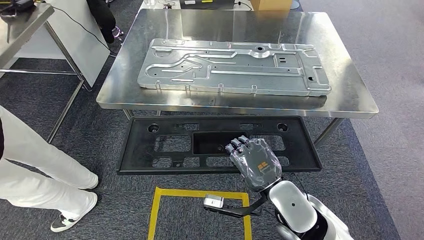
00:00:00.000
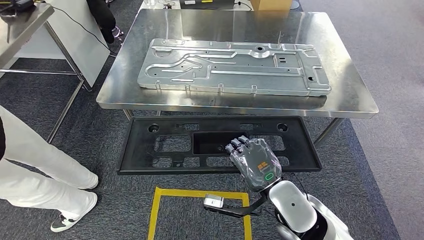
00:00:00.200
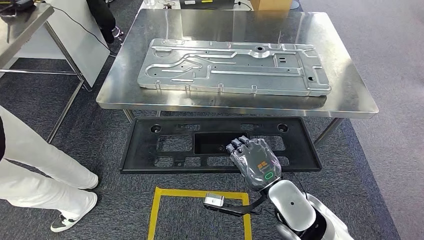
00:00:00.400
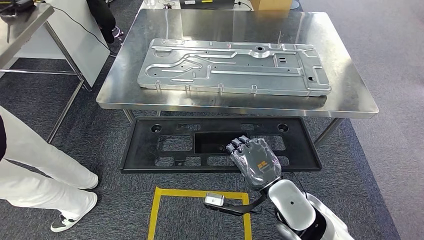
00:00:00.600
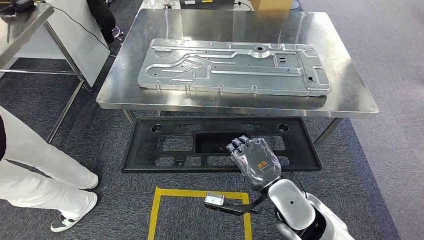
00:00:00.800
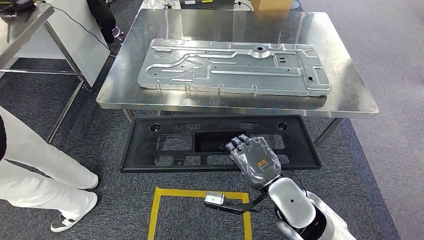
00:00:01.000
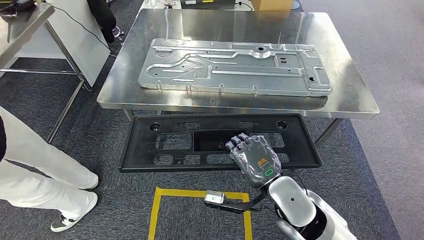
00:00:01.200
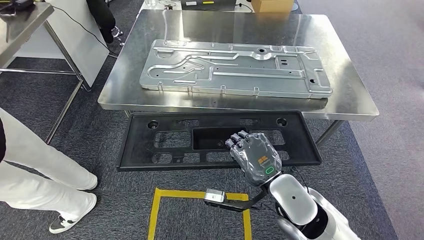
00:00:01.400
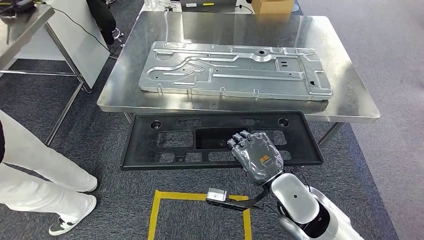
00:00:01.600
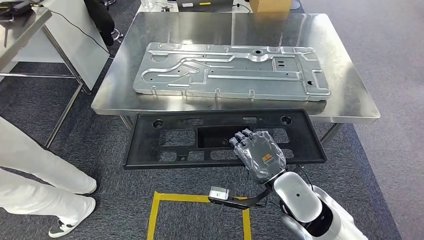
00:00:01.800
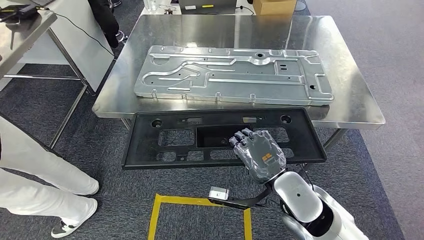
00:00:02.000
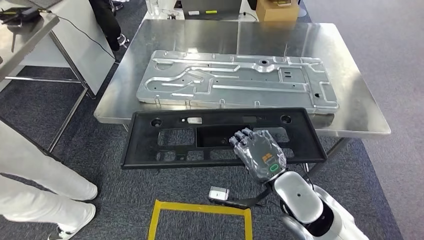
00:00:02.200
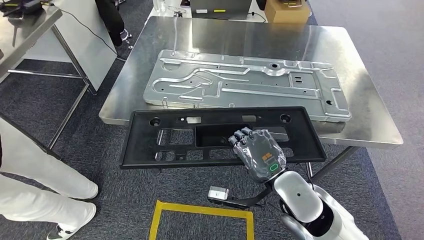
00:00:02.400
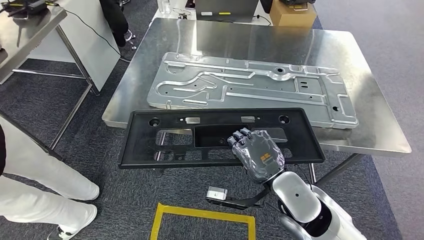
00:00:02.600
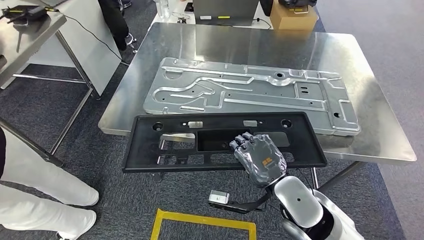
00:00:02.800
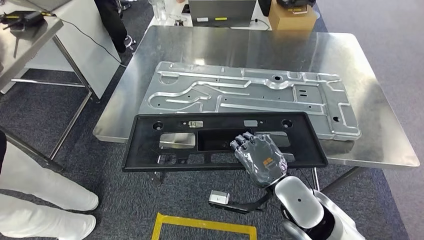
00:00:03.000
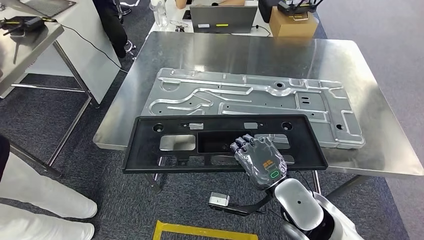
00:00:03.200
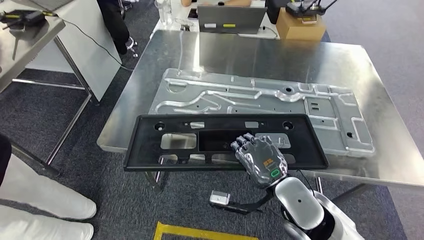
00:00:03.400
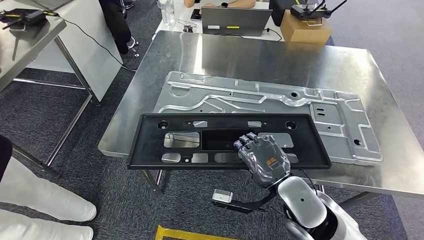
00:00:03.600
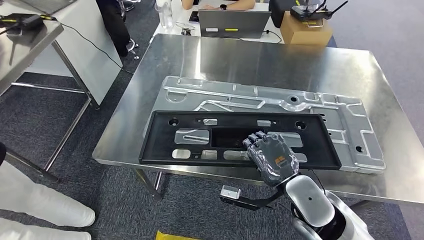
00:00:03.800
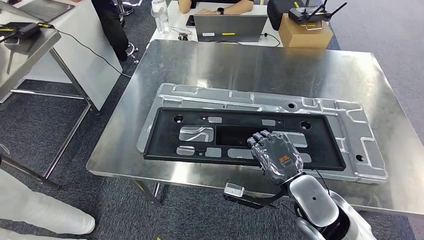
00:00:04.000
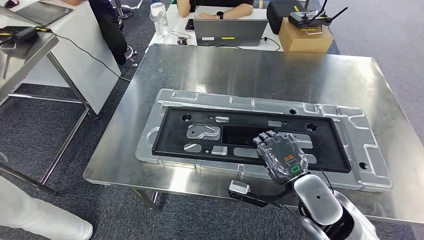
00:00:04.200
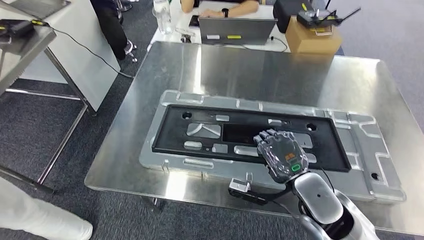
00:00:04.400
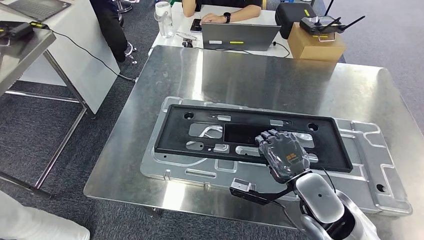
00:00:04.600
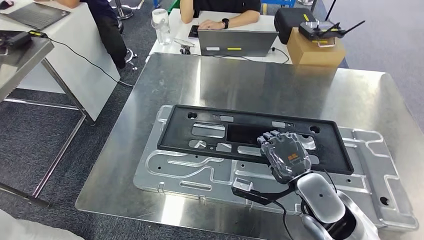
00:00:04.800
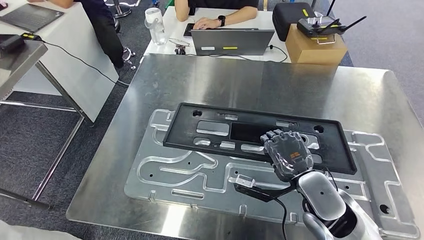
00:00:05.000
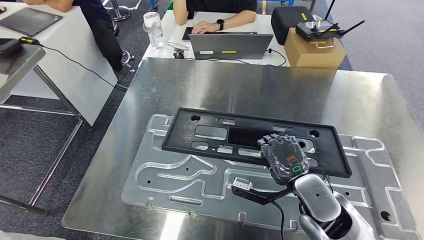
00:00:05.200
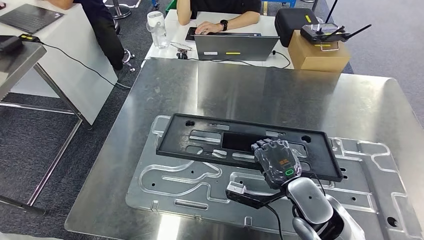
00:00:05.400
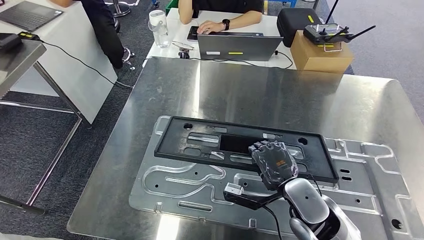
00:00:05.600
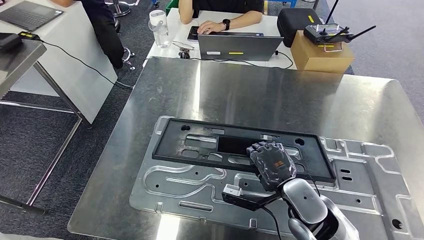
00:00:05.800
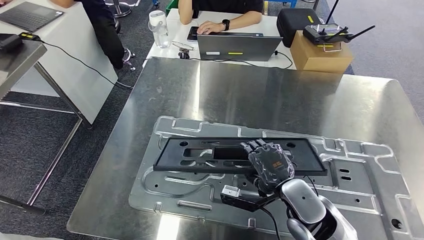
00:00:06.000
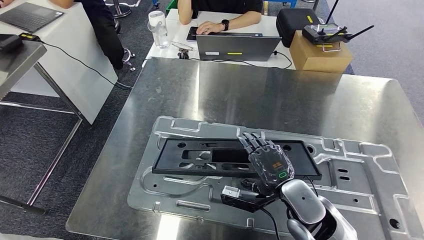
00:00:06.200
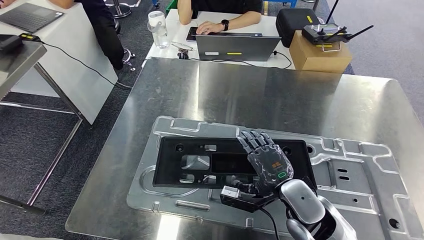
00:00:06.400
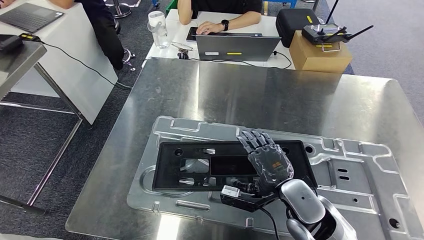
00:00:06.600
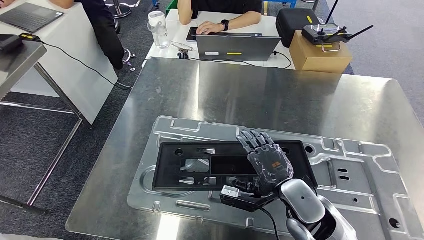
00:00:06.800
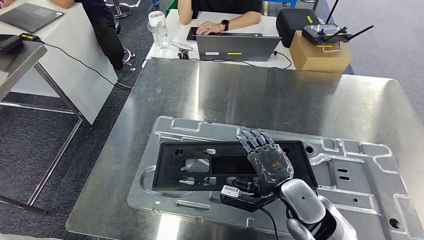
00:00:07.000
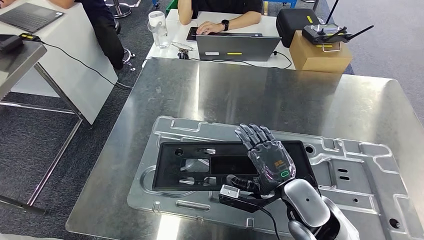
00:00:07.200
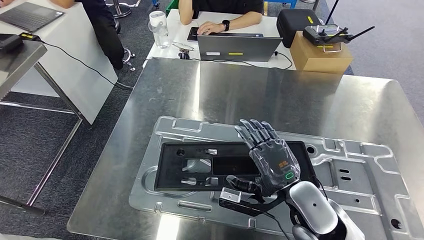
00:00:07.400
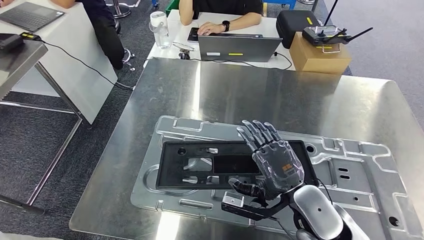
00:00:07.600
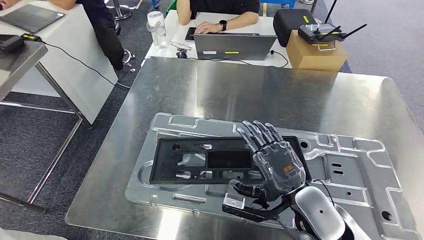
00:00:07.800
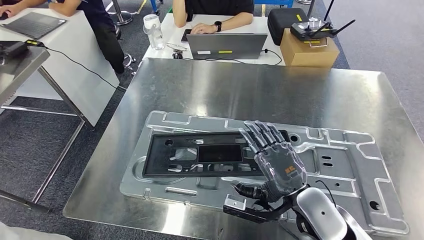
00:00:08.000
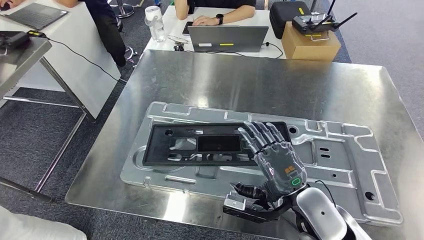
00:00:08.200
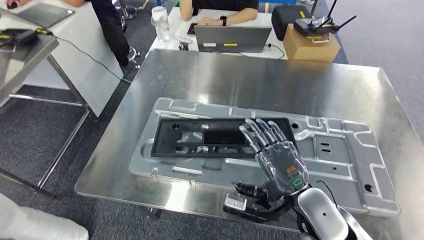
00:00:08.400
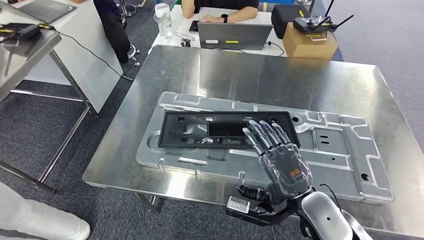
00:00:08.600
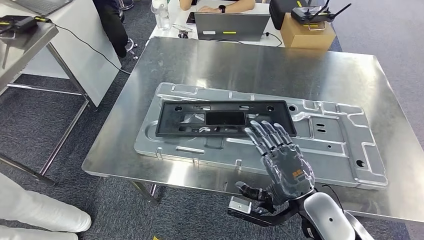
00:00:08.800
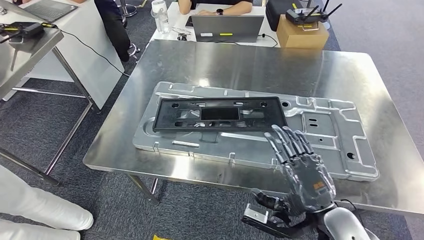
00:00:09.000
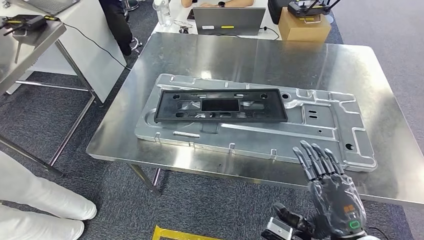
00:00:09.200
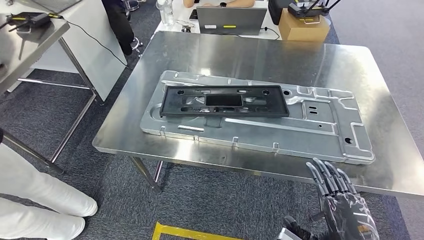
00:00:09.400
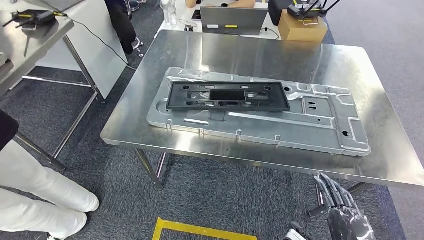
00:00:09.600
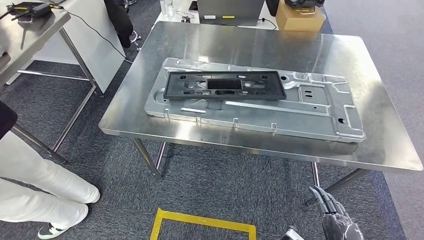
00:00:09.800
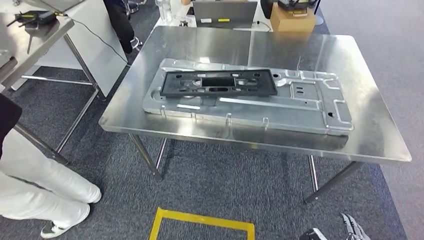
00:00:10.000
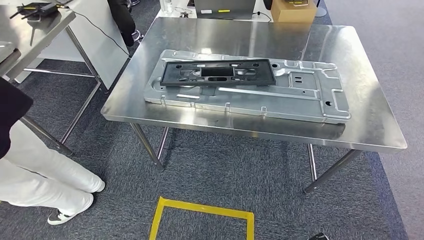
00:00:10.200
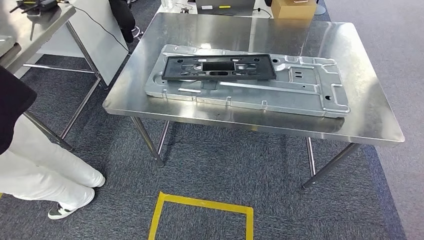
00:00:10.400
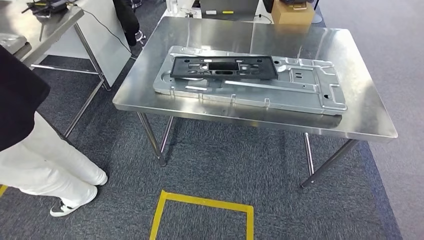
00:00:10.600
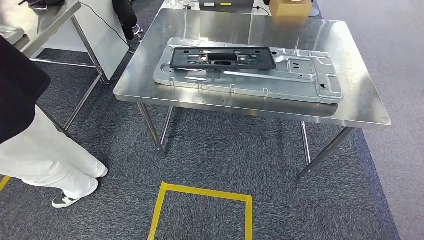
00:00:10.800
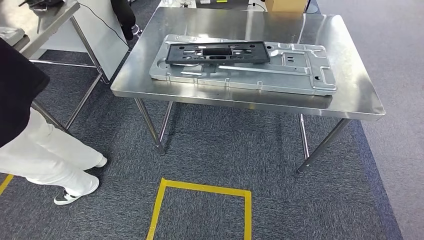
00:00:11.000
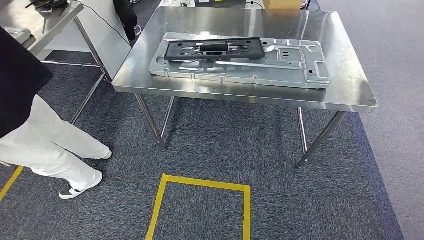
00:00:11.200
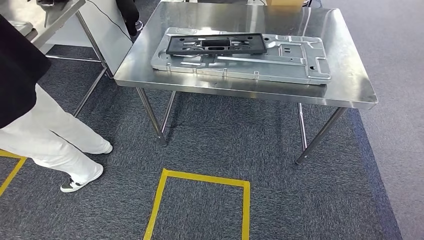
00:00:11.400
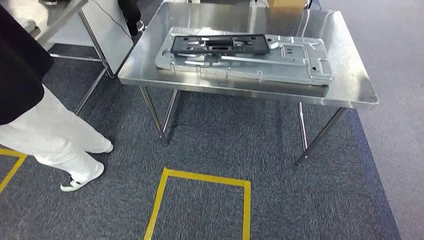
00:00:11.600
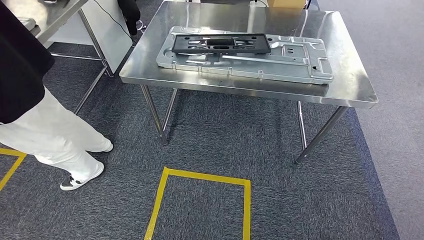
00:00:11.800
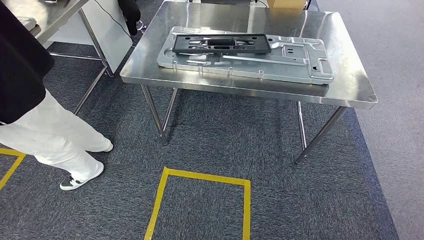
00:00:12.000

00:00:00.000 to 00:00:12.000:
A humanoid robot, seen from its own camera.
Step, 00:00:00.000 to 00:00:04.200: Move the large material to the front of the workbench.
Step, 00:00:05.600 to 00:00:09.800: Insert the large material into the corresponding hole on the workbench.
00:00:00.000 to 00:00:01.600: The hands make only small movements.
00:00:06.000 to 00:00:07.600: The hands move only a little.

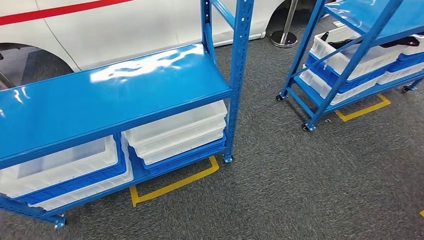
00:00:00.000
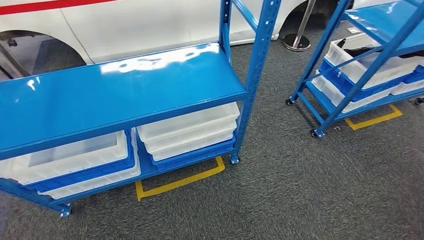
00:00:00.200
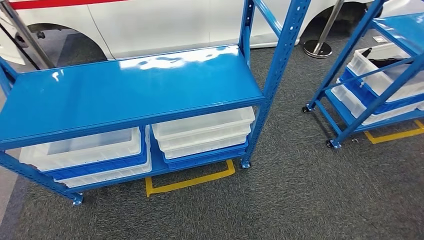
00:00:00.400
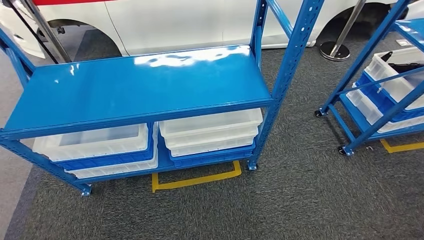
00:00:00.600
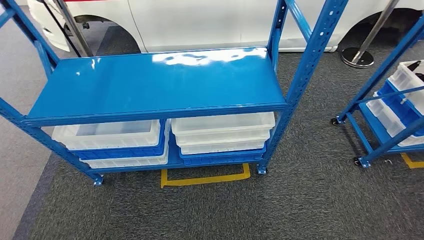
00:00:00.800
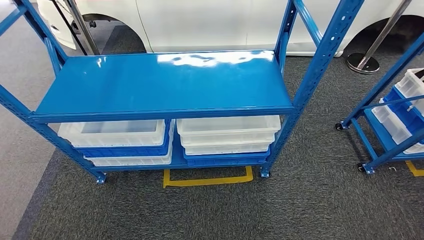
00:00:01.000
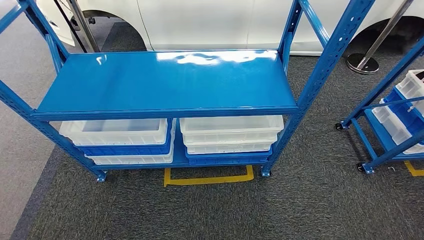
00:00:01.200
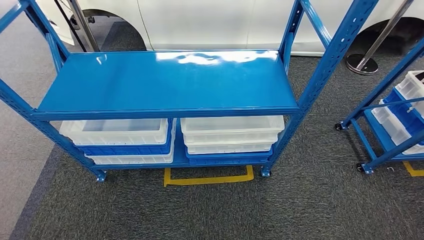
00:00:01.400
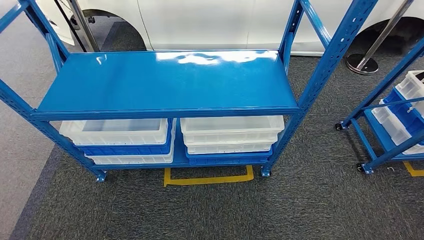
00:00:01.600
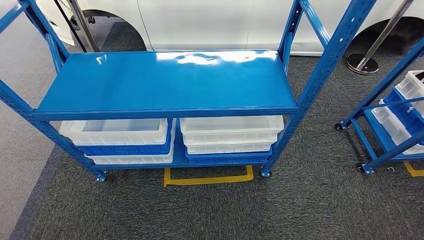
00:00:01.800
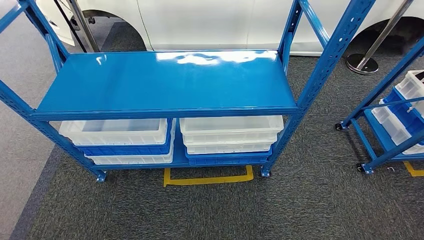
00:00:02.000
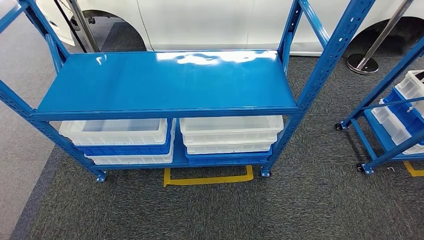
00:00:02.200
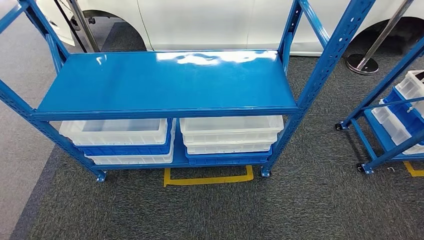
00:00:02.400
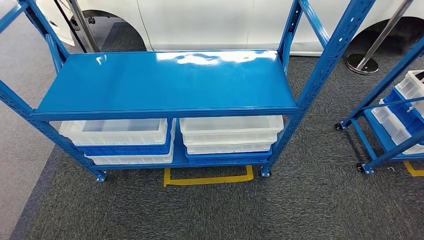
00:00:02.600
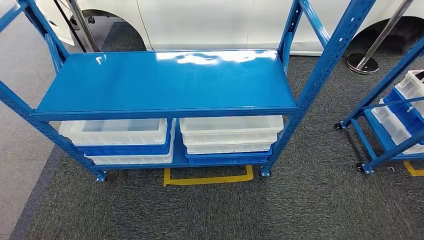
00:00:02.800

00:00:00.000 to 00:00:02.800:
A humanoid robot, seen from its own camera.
Step, 00:00:00.000 to 00:00:02.600: Move to the initial position of the shelf.

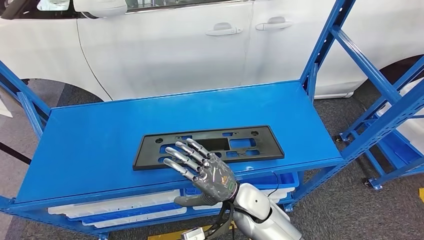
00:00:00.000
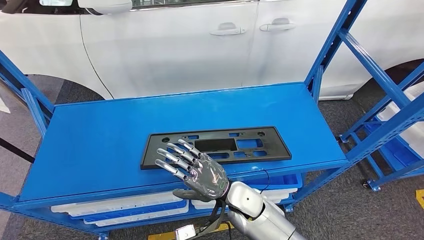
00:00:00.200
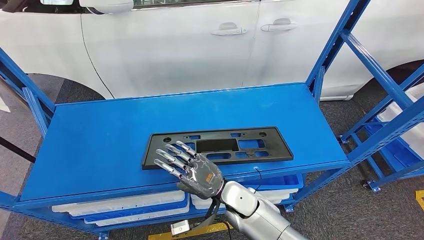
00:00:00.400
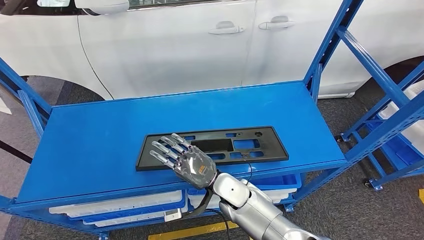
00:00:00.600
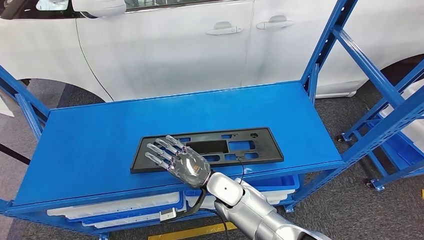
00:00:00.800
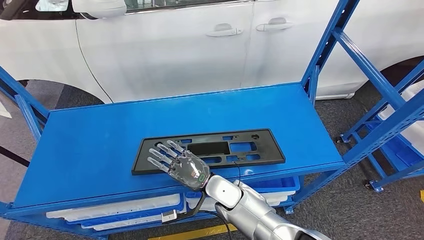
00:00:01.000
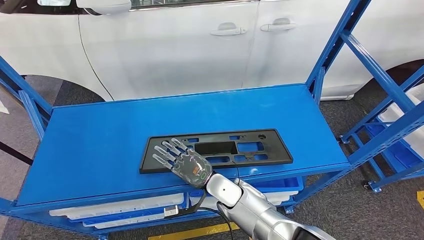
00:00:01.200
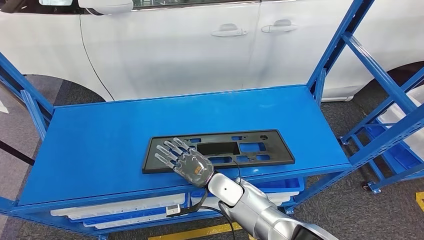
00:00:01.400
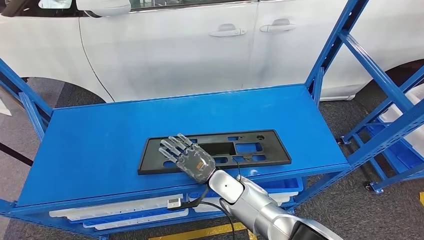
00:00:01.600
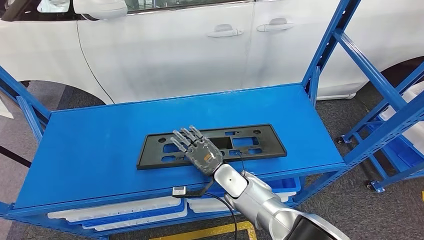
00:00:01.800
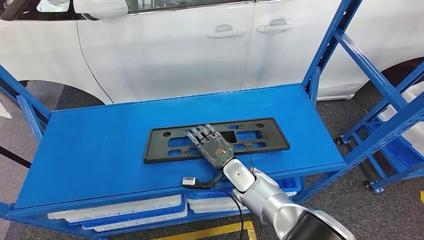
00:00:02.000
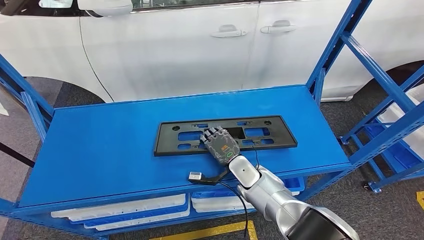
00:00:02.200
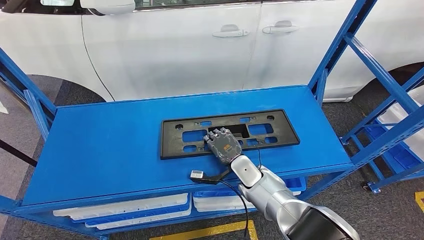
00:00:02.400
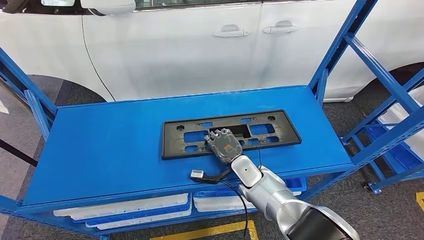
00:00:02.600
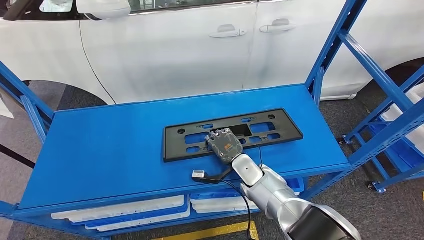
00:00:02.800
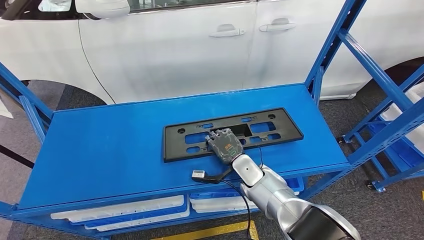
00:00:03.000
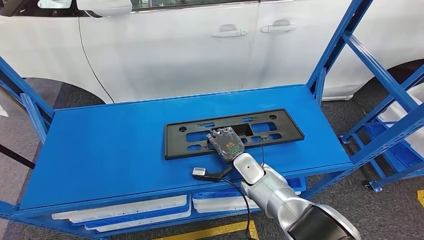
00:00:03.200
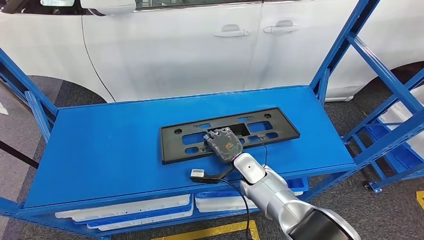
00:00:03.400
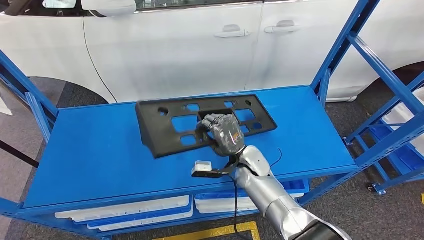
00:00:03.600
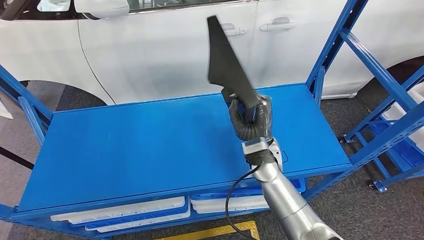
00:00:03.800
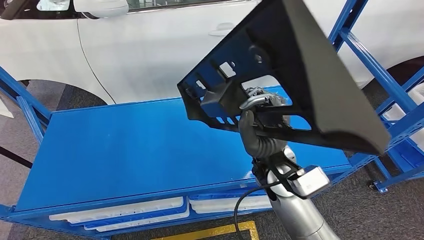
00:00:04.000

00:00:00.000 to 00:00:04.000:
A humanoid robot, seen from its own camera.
00:00:01.400 to 00:00:02.600: The right hand goes roughly 5 cm to the right.
